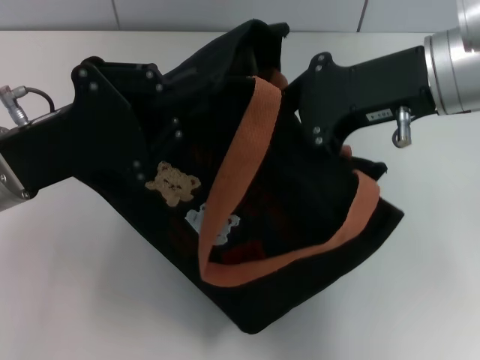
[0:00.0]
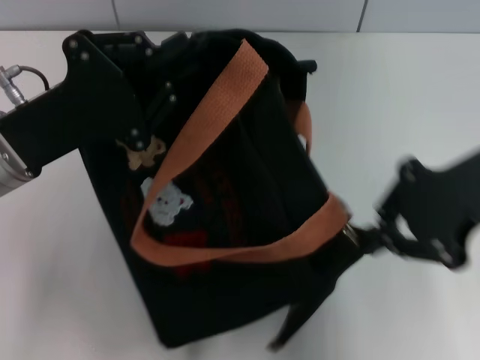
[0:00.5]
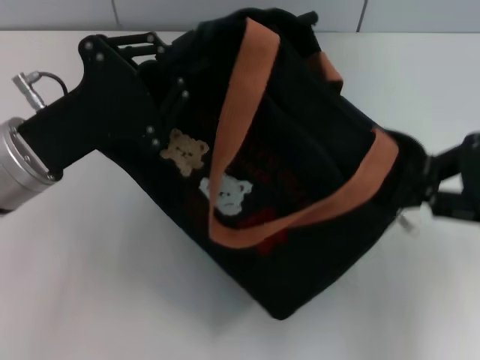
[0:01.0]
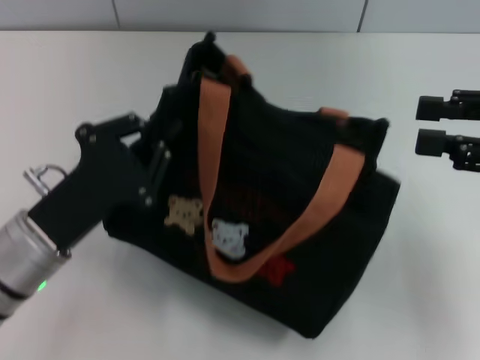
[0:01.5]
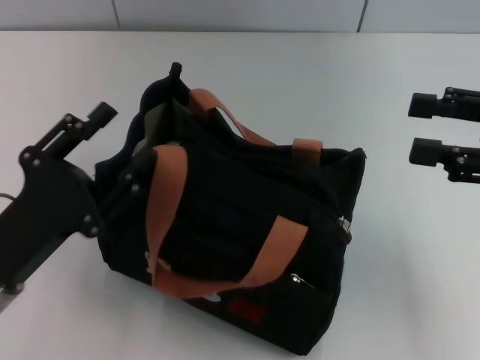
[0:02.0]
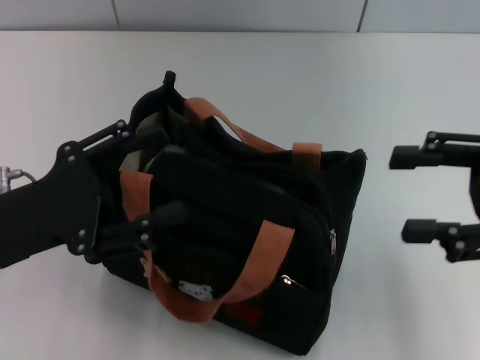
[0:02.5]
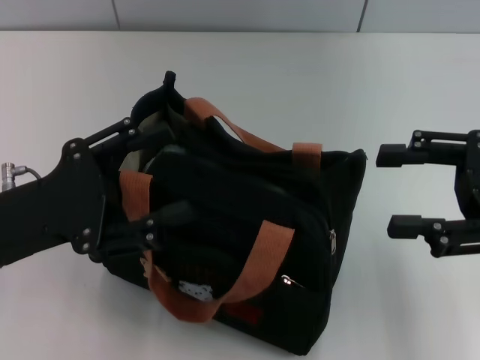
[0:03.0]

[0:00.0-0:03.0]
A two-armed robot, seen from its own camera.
Step, 0:01.5 to 0:02.0: Grab the bag with your left hand.
0:00.0 to 0:01.5: The left gripper moves downward, roughly 10 cm. The right gripper travels to the right by roughly 15 cm, and opens up.
0:01.5 to 0:03.0: The right gripper opens up, while the left gripper moves upward, roughly 5 cm, and opens up.
